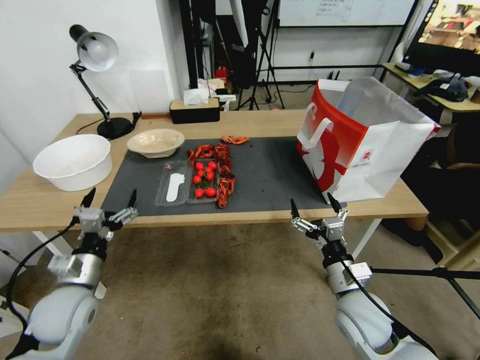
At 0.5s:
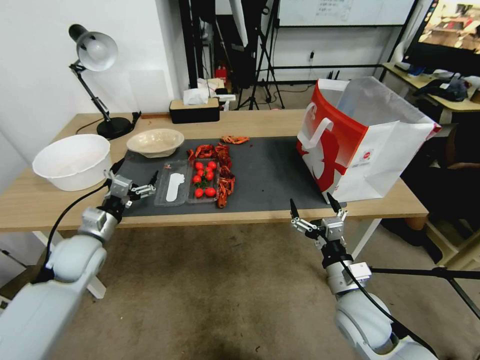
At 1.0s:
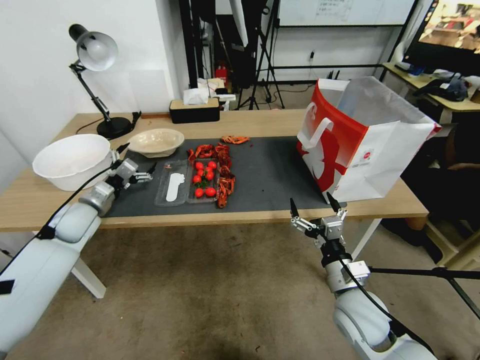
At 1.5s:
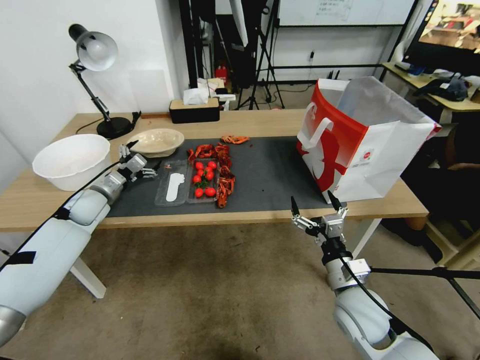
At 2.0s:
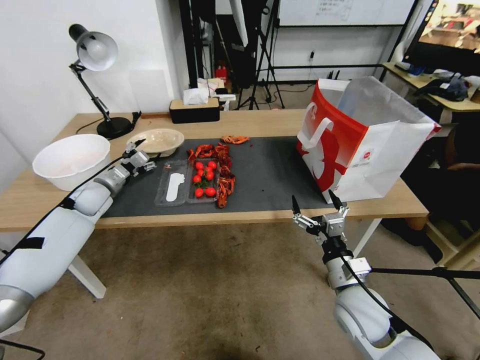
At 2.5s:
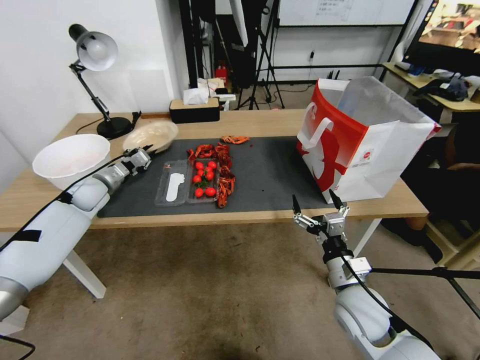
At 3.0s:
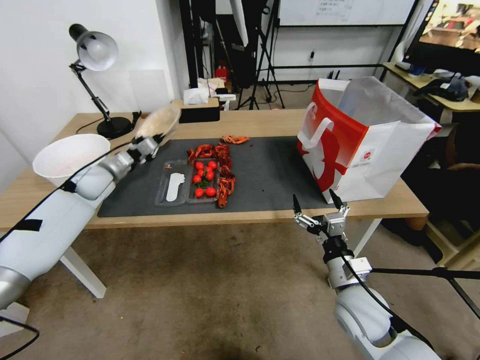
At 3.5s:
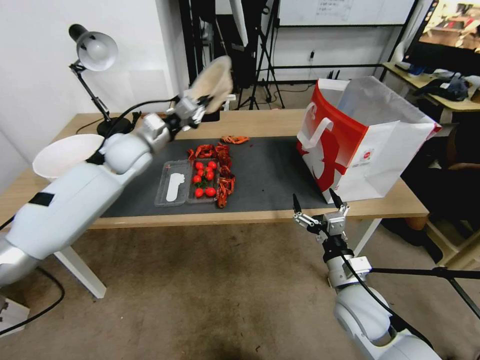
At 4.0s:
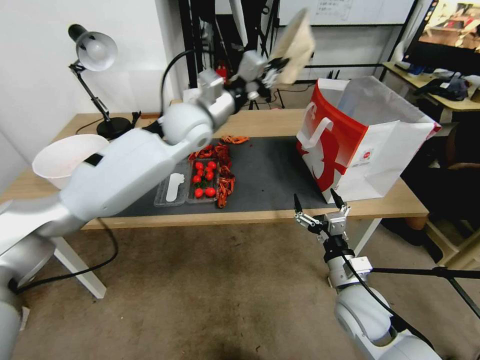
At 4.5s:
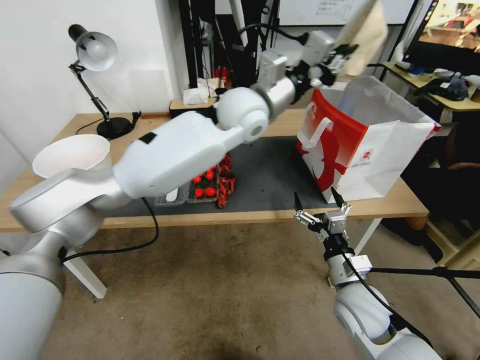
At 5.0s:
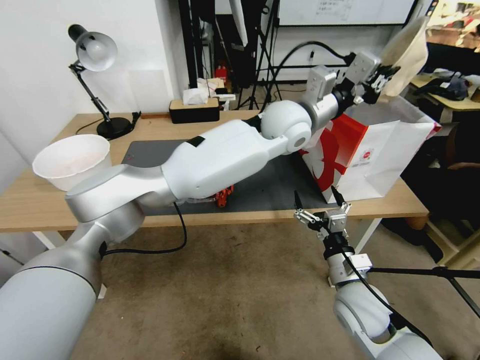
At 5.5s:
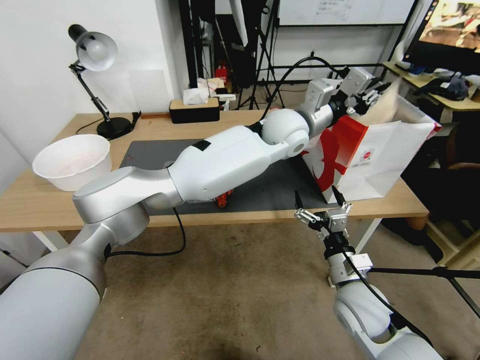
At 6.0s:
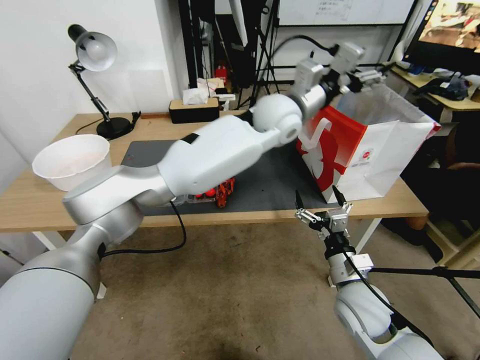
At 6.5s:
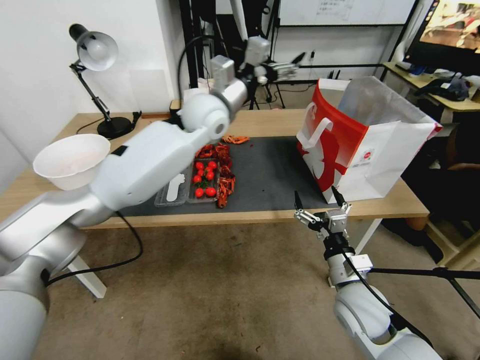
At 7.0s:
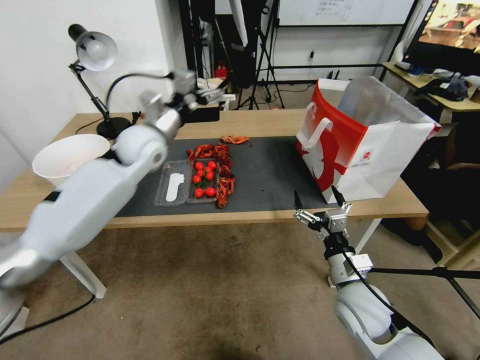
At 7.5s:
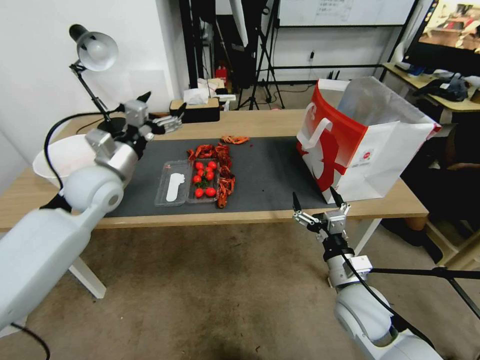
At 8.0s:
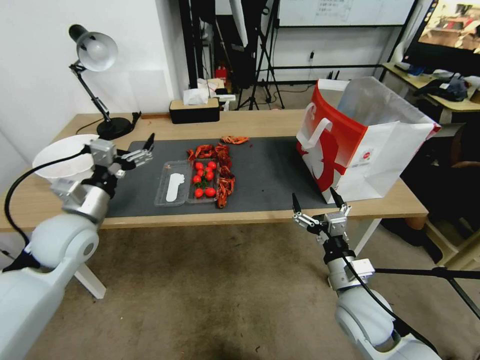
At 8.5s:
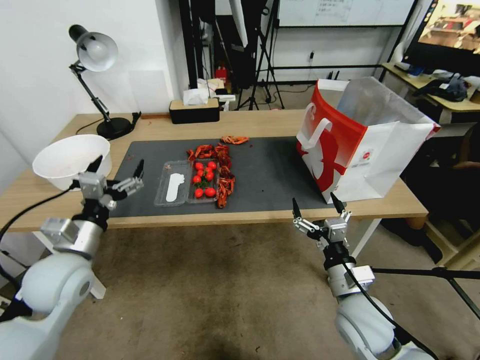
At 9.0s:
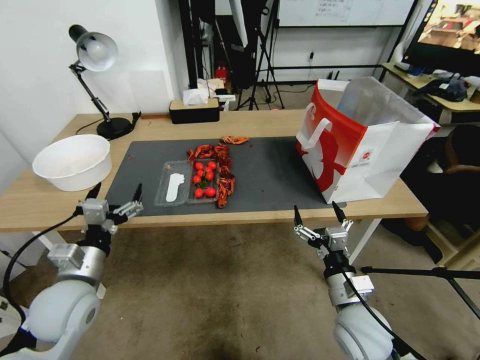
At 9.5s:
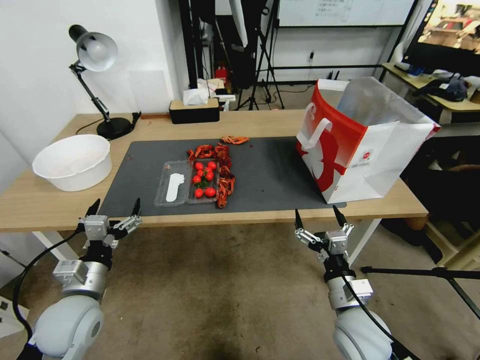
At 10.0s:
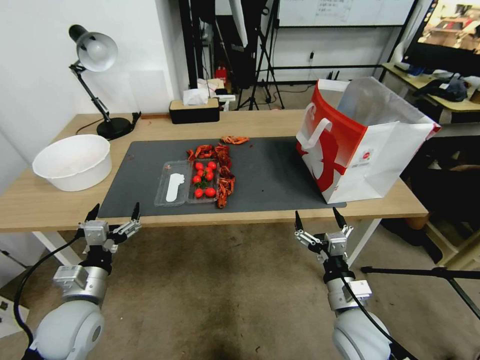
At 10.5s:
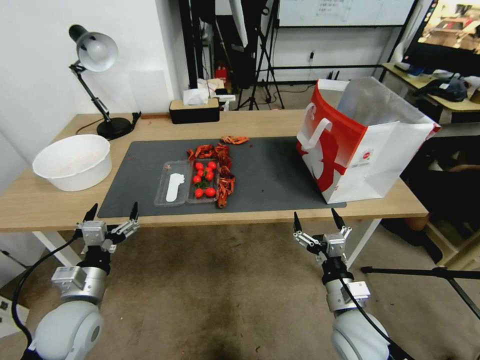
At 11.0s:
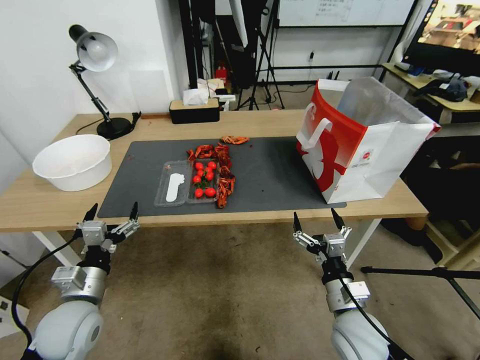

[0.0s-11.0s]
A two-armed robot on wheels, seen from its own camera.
0.0s to 2.0s: The left gripper shifts roughly 25 cm forward.
2.0s to 3.5s: The left gripper is displaced to the right and upward by some 25 cm, and closes up.
3.5s to 5.5s: The left gripper heads to the right, covering some 35 cm.
5.5s to 7.5s: The left gripper is displaced to the left by roughly 40 cm, and opens its fingers.
7.5s to 9.0s: The left gripper shifts approximately 20 cm backward and downward.
9.0s to 11.0s: The left gripper goes roughly 5 cm downward.

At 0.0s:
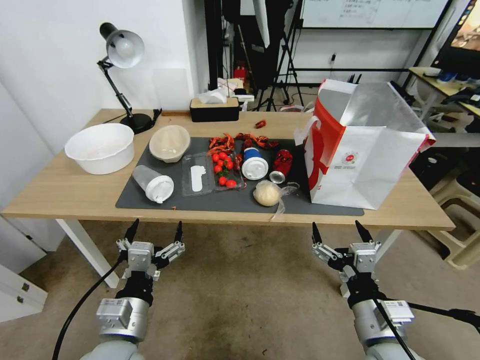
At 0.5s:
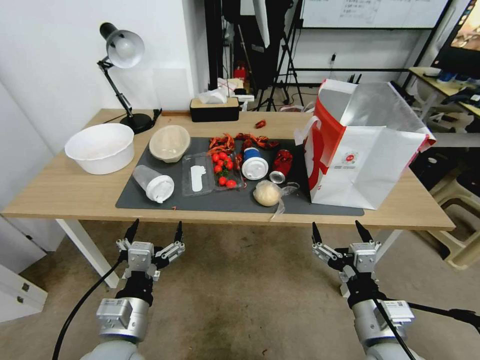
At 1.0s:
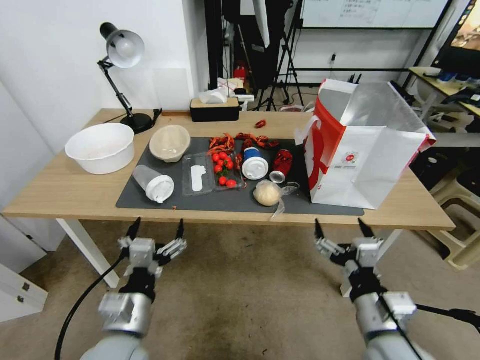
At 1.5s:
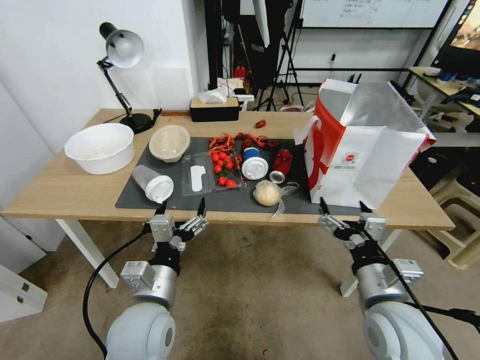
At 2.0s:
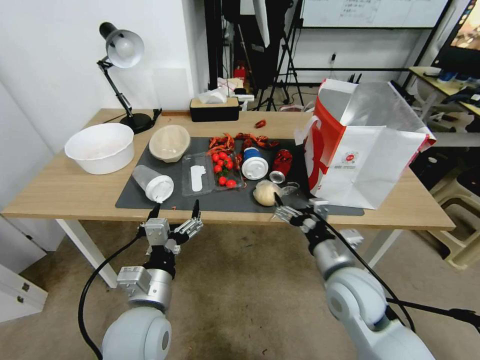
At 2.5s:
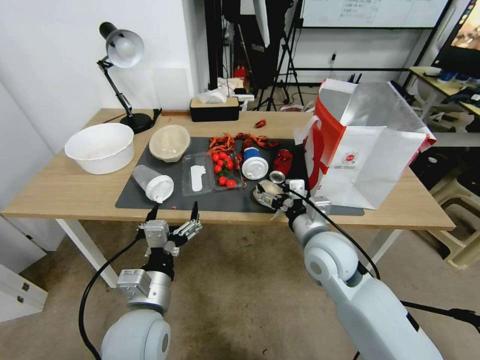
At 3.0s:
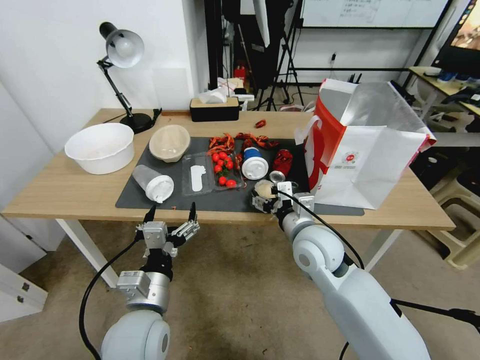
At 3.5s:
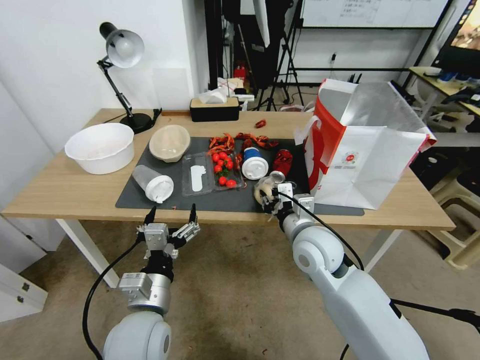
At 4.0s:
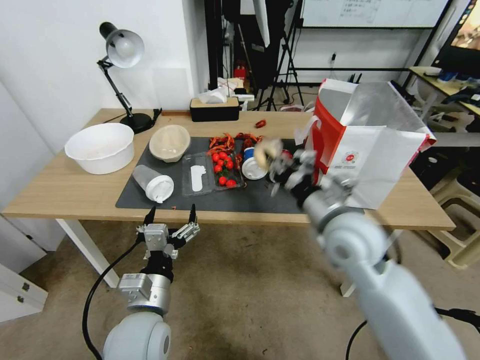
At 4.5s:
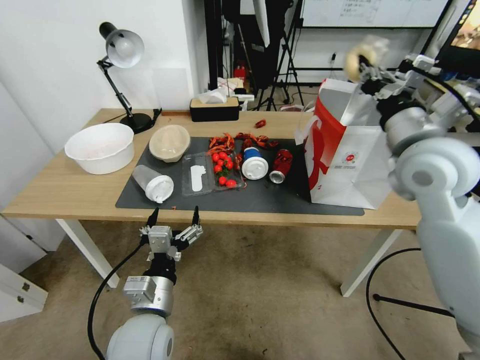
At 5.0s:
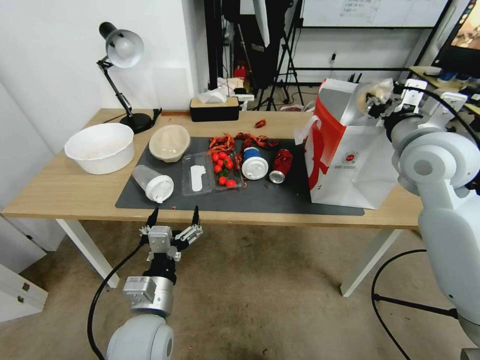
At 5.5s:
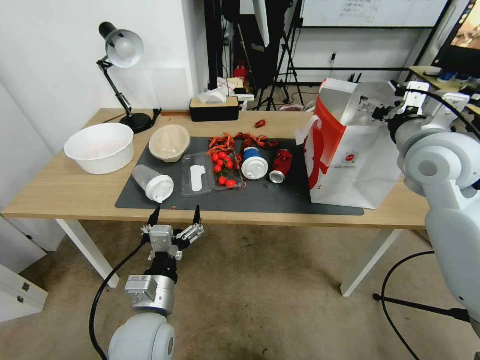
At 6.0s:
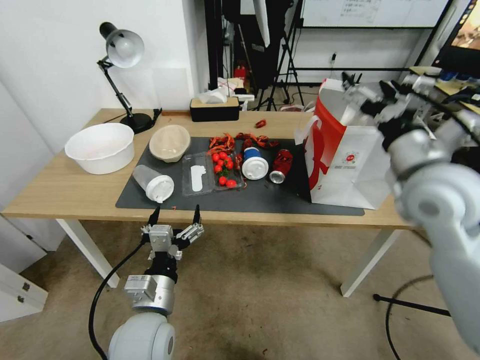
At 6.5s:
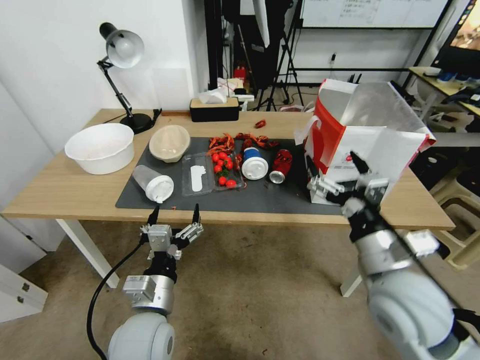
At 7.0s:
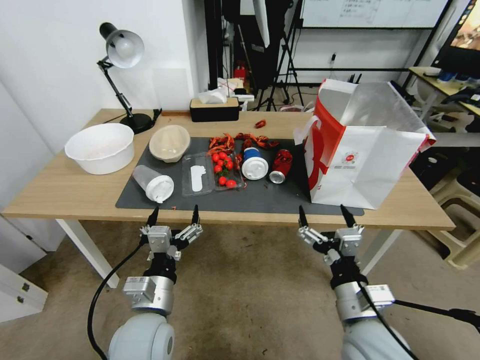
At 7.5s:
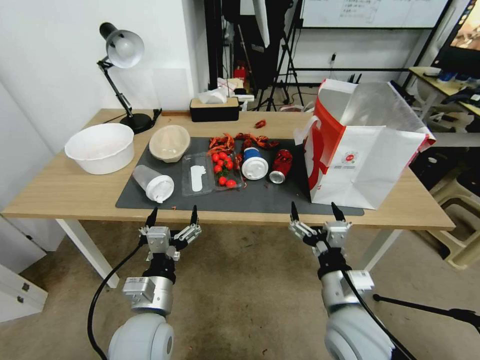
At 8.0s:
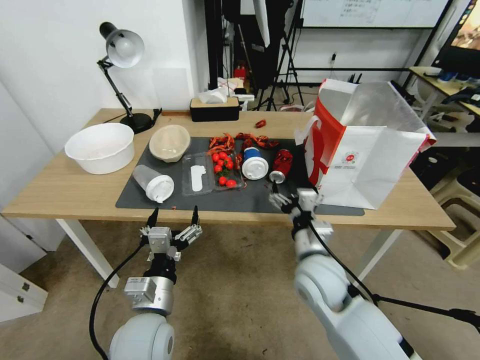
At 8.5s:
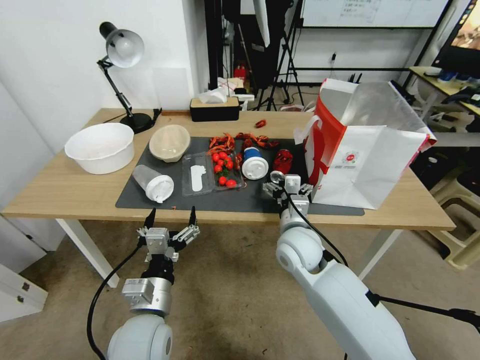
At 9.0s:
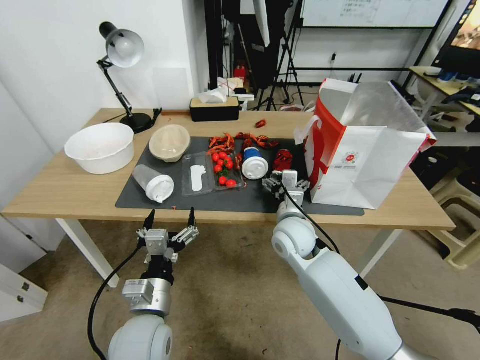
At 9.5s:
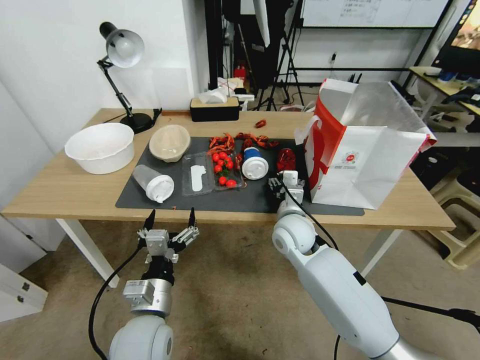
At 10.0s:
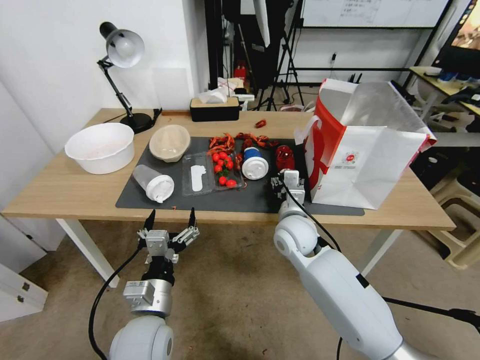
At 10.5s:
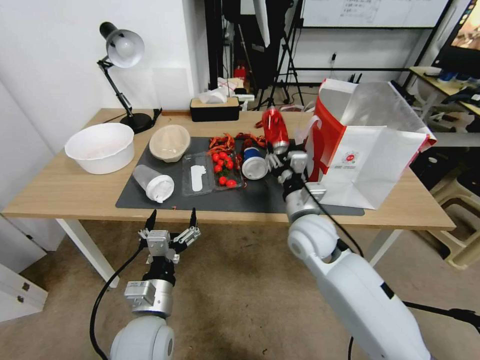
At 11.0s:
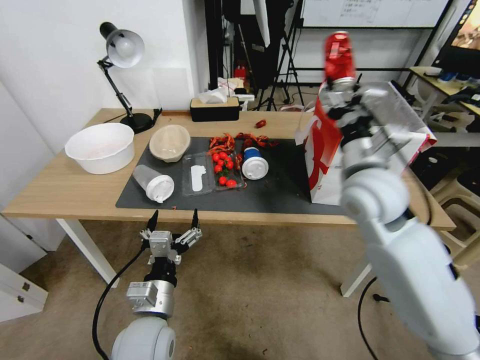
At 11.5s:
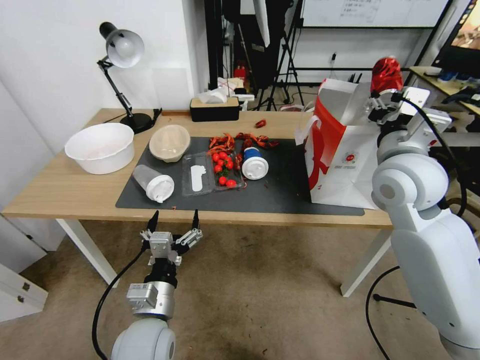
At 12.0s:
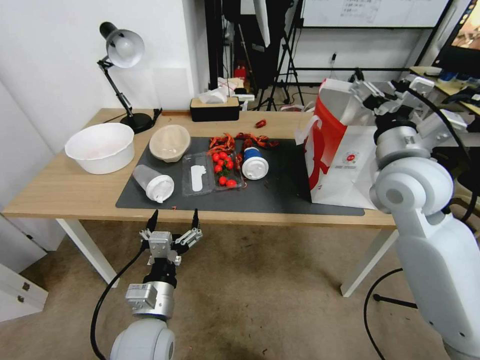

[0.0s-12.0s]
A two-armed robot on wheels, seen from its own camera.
2.0s to 4.0s: The right gripper moves upward and forward, approximately 15 cm, and closes.
4.0s to 6.0s: The right gripper moves upward and to the right, some 15 cm, and opens.
6.0s to 8.0s: The right gripper travels downward and to the left by some 25 cm.
8.0s to 10.0s: The right gripper shifts about 10 cm forward, and closes up.
10.0s to 12.0s: The right gripper is displaced upward and to the right by approximately 25 cm, and opens.

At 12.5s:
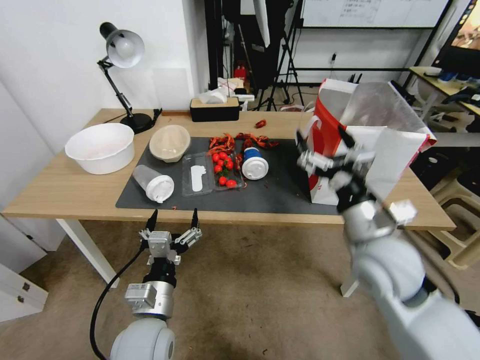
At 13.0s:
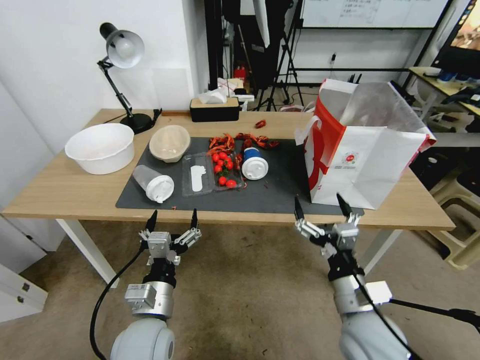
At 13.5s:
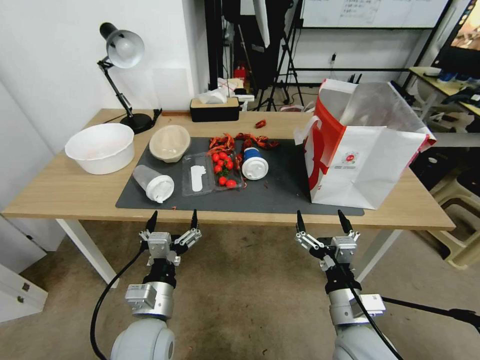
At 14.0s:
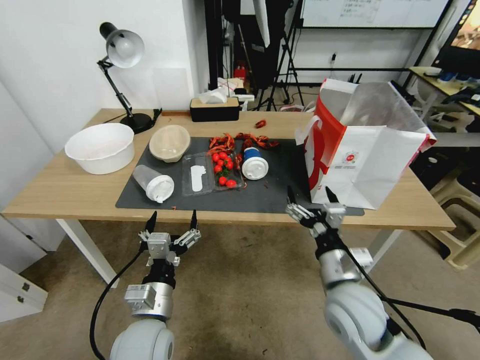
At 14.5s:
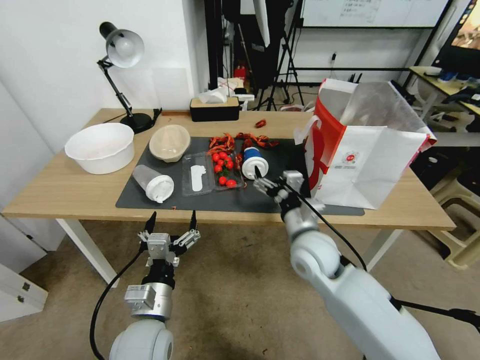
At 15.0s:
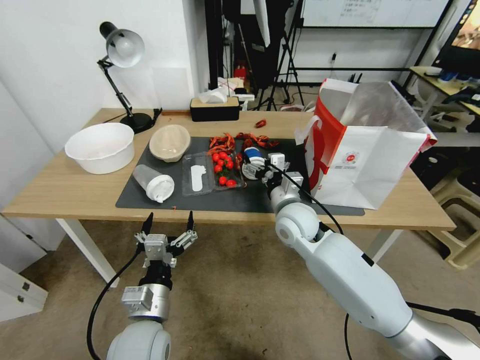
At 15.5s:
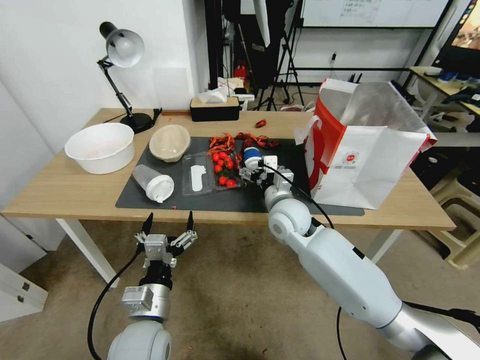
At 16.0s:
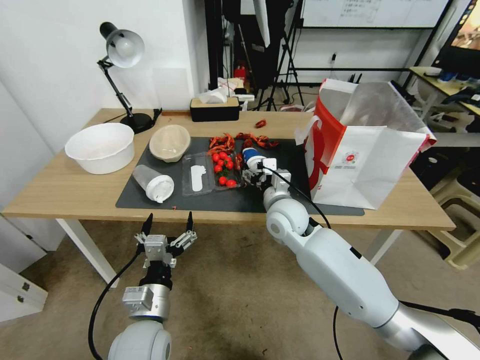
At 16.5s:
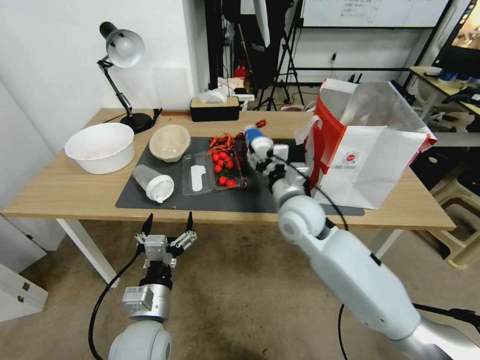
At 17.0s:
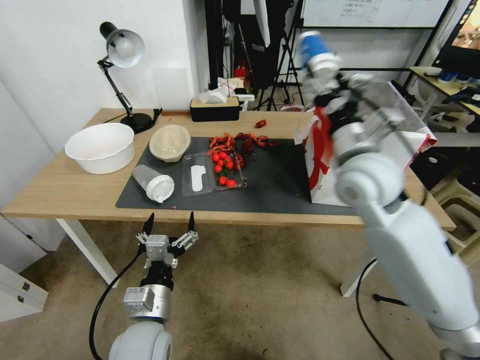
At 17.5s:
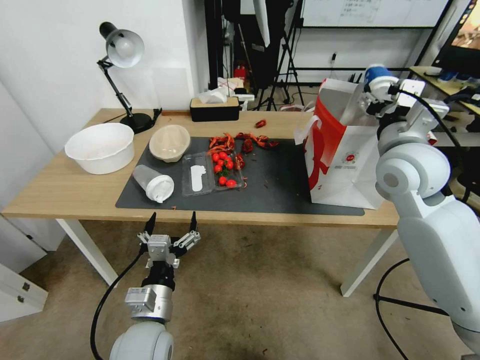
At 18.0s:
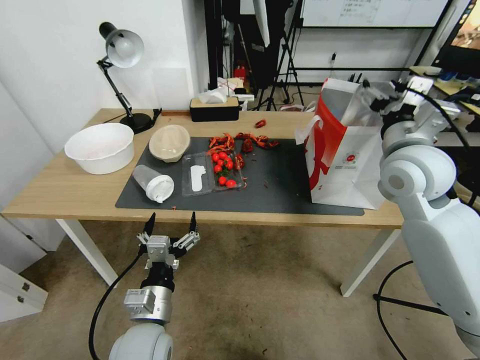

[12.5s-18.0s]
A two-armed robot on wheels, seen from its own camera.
12.5s to 14.5s: The right gripper heads downward, covering about 10 cm.
14.5s to 16.0s: The right gripper moves forward and to the left, approximately 20 cm.
16.0s to 18.0s: The right gripper heads upward and to the right, covering approximately 25 cm.
